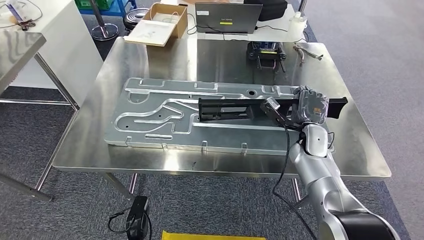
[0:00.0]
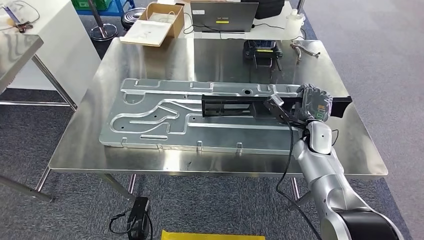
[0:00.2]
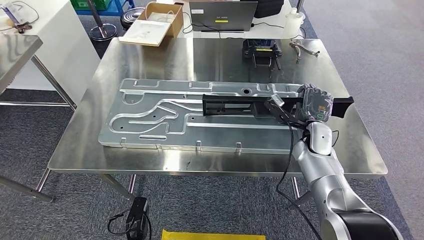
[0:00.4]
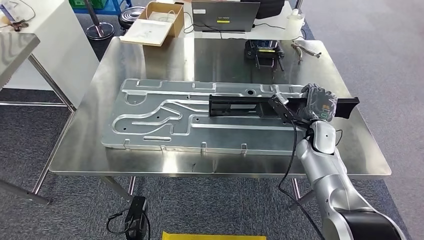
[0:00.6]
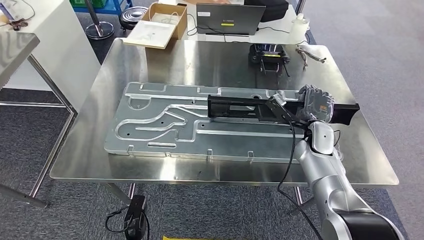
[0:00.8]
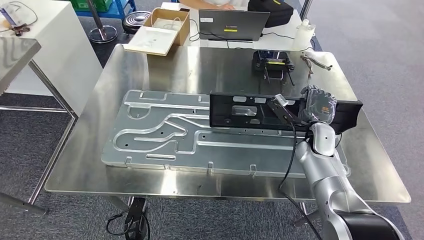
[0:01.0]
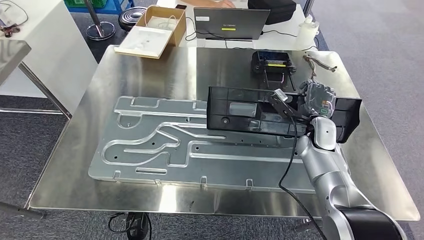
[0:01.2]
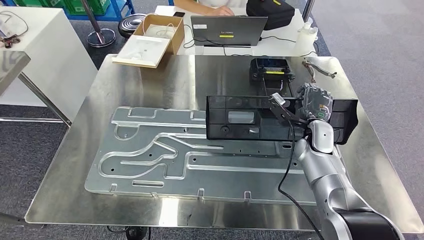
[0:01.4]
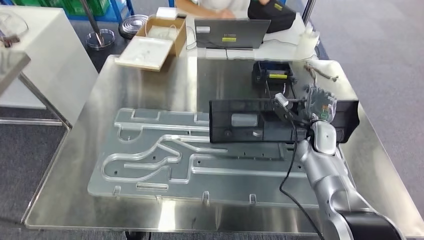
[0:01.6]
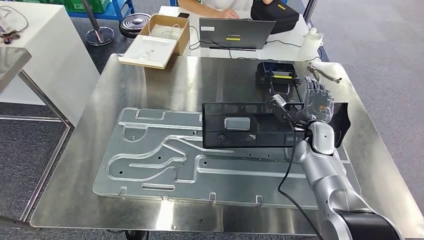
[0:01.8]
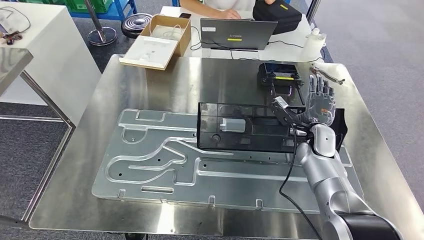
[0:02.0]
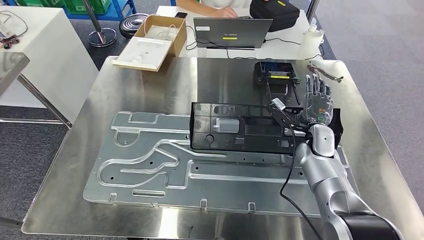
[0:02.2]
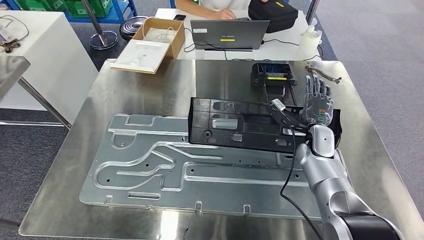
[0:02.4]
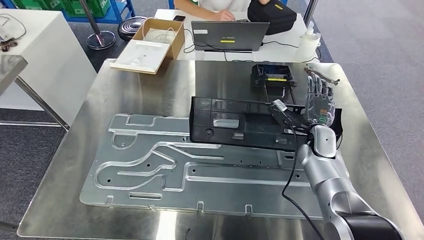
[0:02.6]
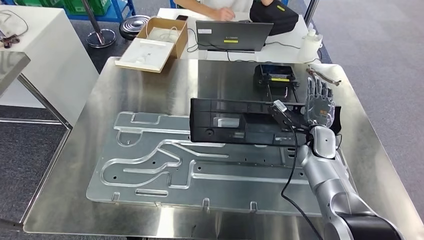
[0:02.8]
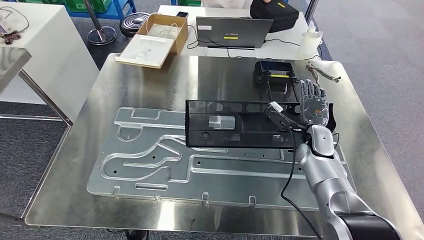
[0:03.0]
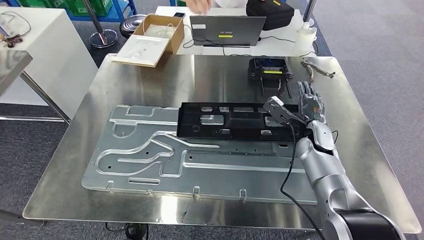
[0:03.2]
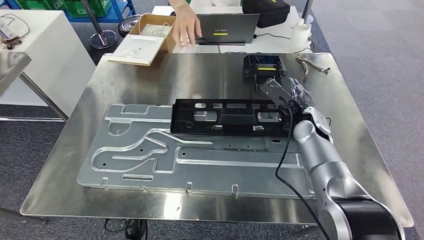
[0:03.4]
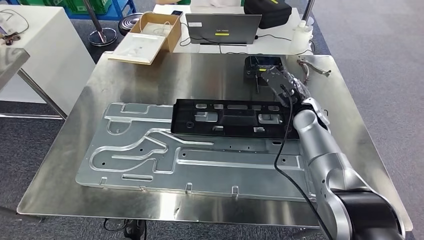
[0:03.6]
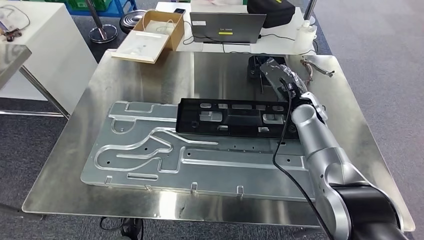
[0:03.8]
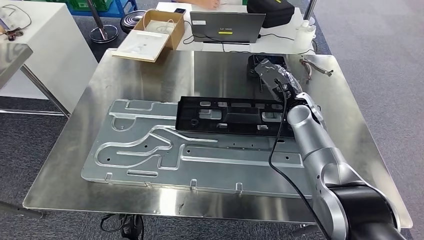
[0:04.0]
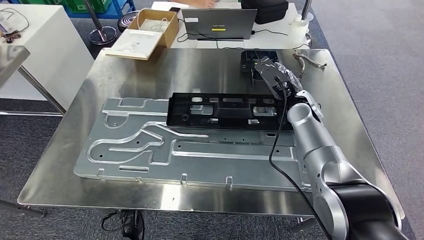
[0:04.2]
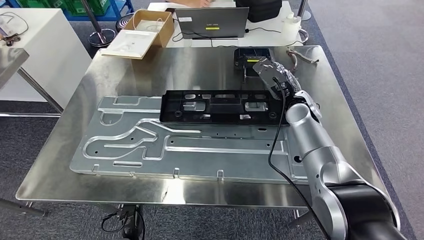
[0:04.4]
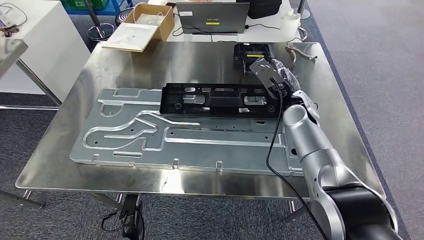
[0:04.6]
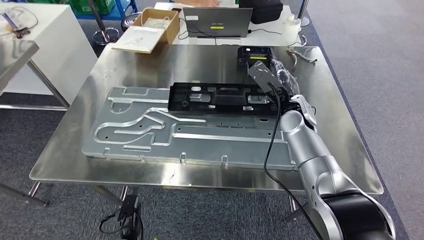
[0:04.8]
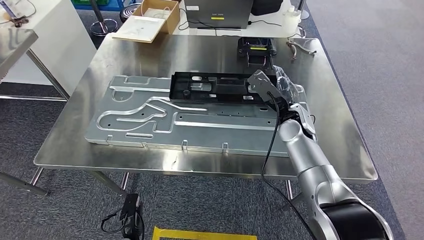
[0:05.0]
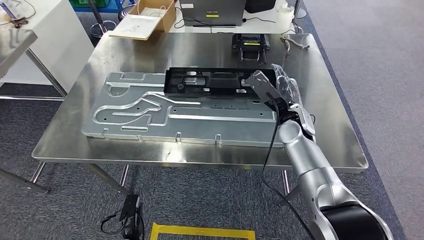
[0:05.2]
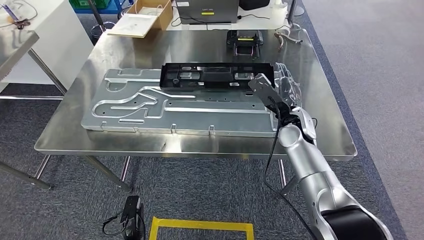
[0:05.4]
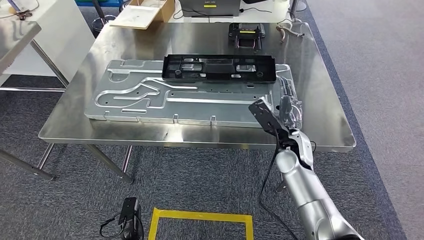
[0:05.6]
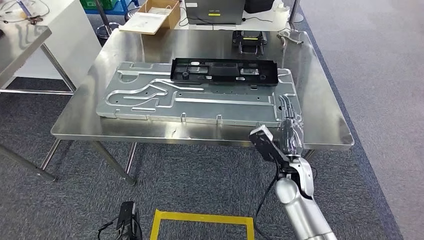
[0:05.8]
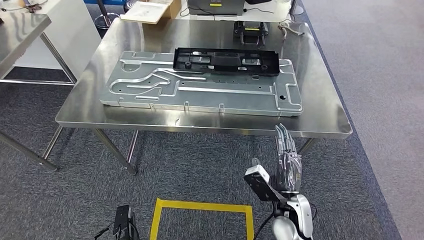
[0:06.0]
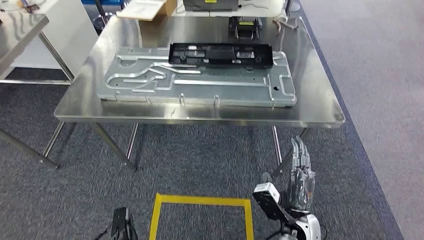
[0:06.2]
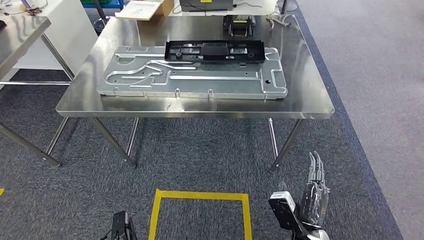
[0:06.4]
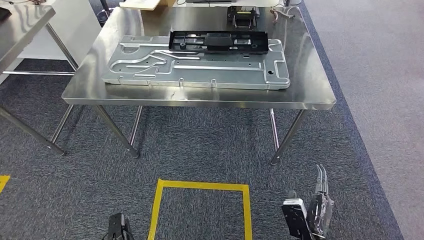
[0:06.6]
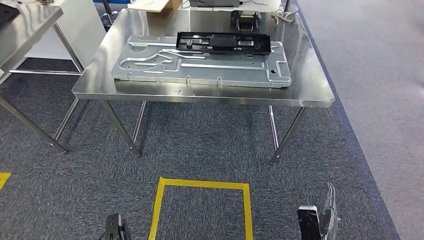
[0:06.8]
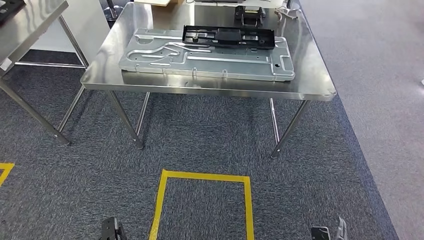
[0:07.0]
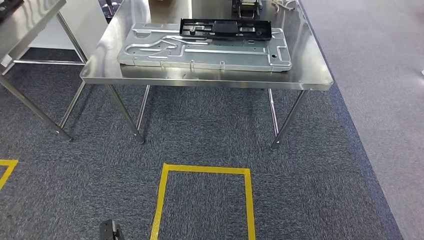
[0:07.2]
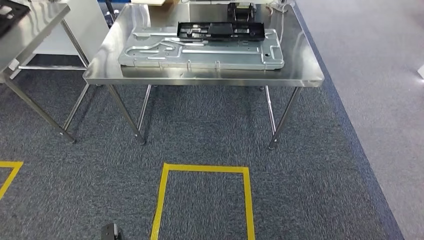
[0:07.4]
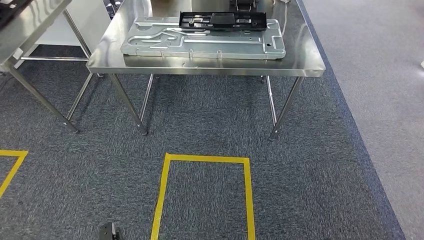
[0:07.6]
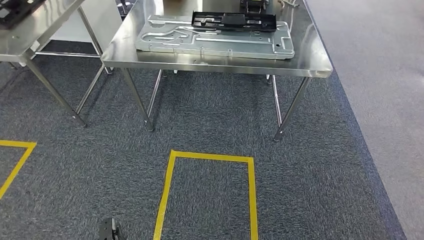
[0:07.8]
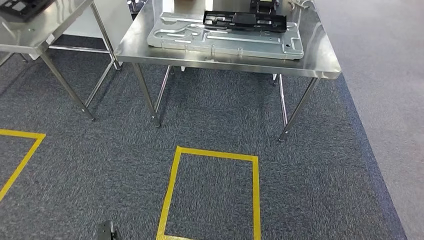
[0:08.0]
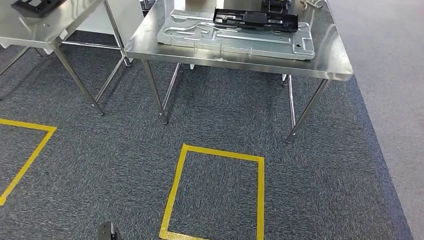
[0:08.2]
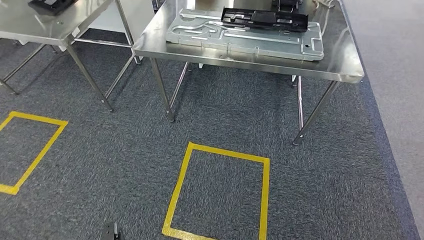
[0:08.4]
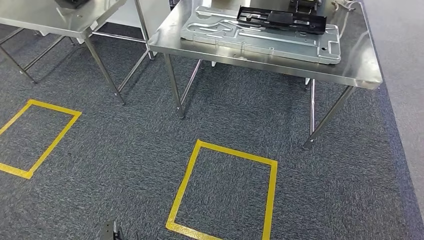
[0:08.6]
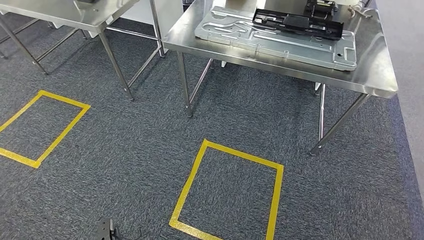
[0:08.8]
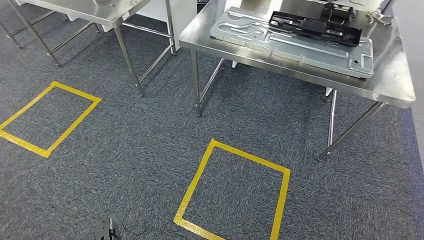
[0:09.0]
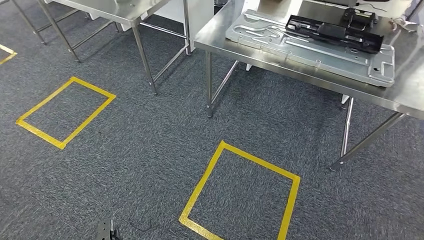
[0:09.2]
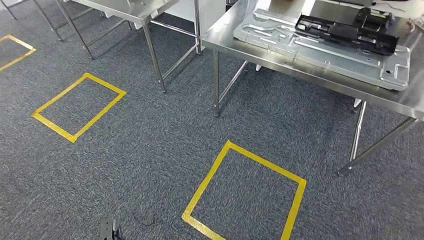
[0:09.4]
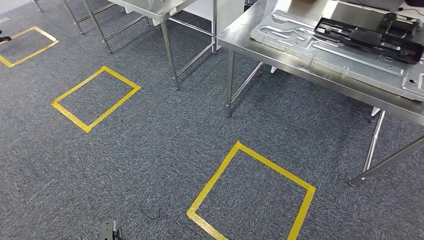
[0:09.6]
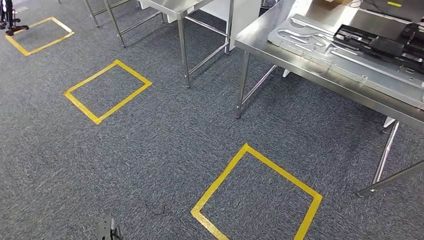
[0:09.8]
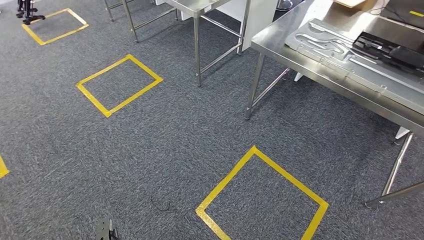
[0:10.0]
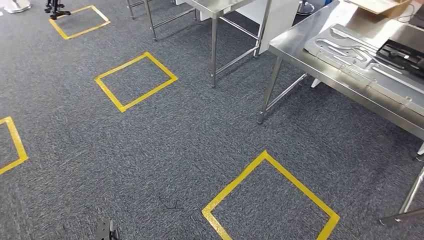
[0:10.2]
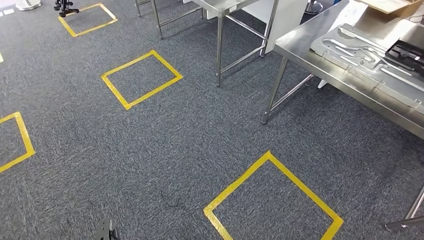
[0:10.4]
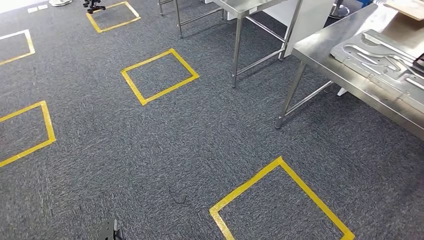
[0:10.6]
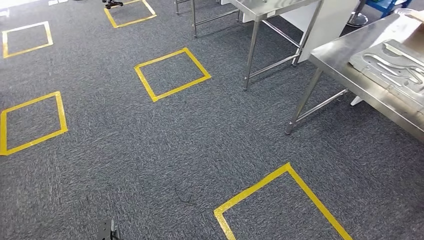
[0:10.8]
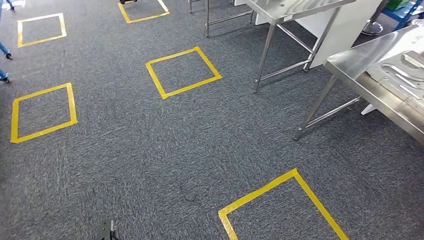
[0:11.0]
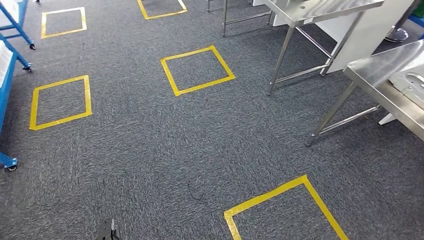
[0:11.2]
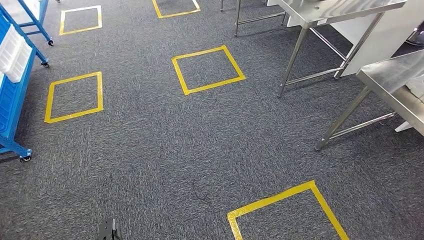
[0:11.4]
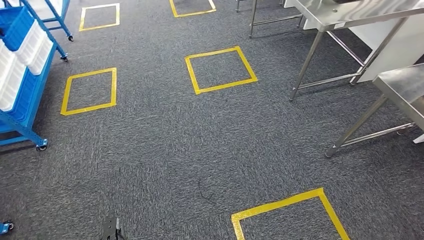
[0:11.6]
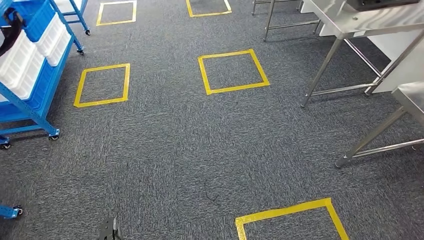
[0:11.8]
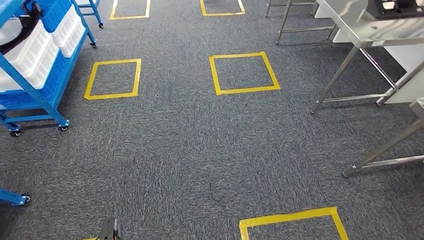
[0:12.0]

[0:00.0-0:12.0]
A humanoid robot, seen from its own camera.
Step, 0:00.0 to 0:06.4: Insert the large material into the corresponding slot on the workbench.

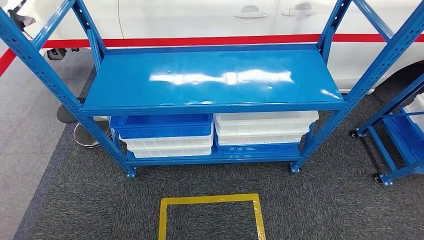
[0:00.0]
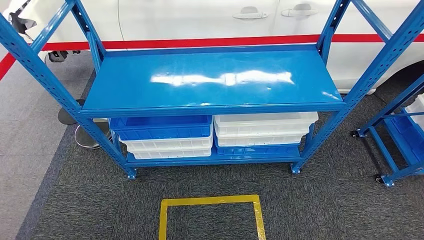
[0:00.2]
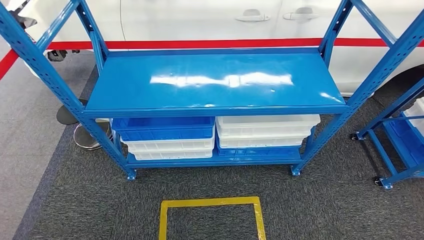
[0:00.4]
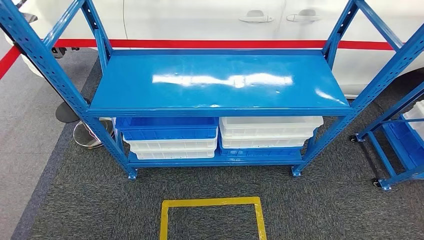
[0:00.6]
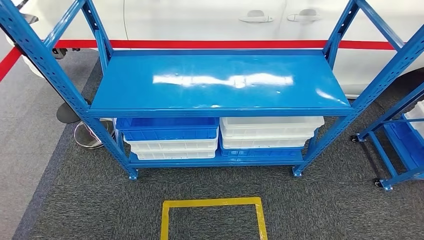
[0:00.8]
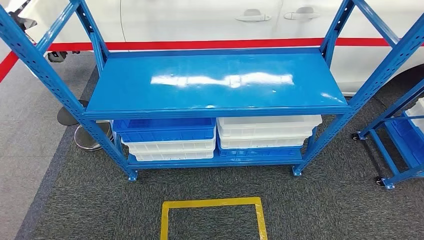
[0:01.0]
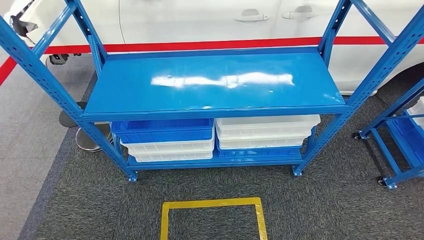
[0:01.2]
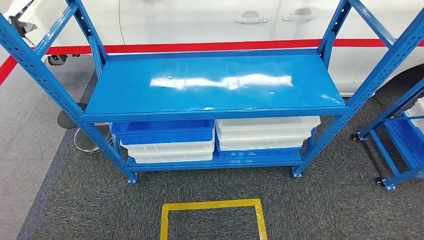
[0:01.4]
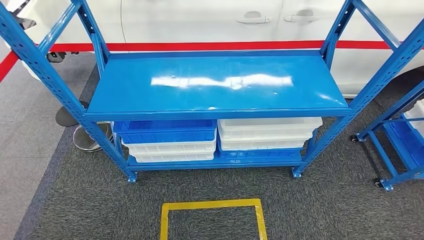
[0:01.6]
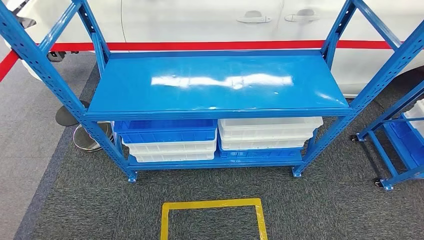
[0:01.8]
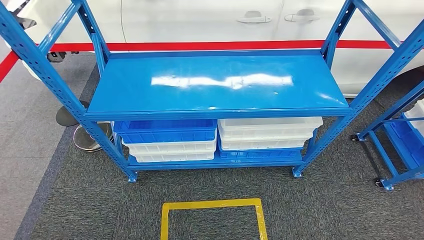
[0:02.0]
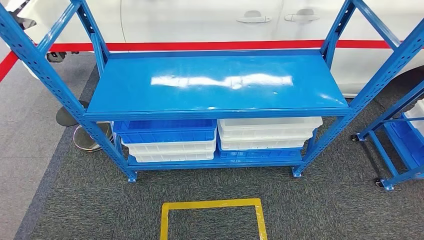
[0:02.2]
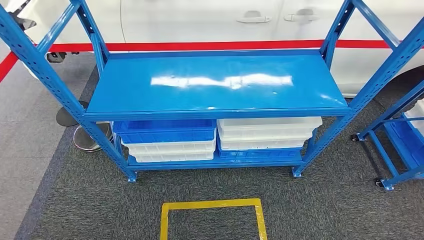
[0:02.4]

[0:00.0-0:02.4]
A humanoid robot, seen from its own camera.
Step, 0:00.0 to 0:02.2: Move to the initial position of the shelf.
0:01.2 to 0:02.4: There are only small adjustments of the hands.

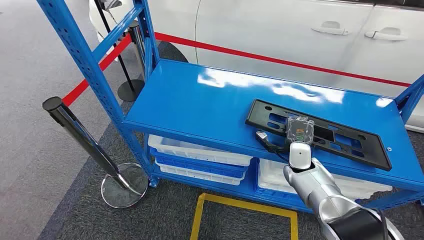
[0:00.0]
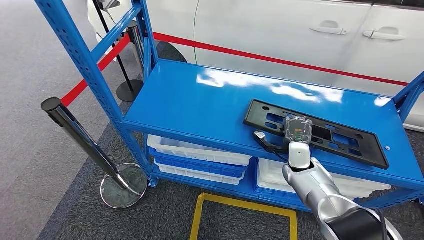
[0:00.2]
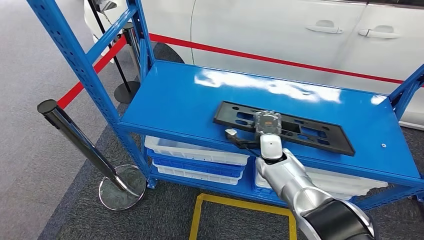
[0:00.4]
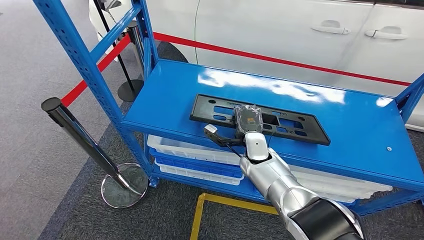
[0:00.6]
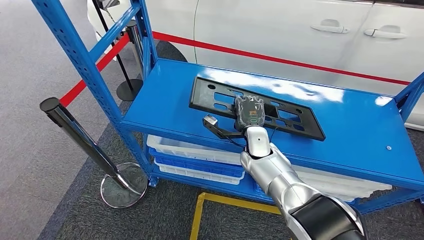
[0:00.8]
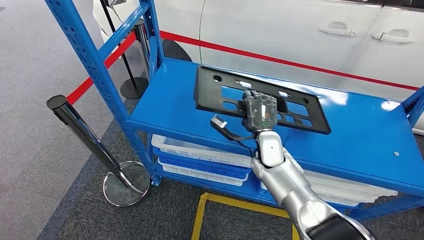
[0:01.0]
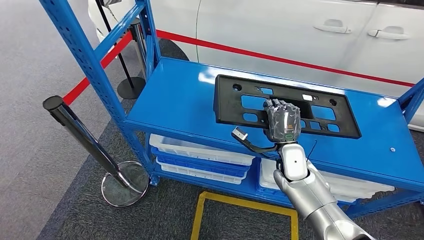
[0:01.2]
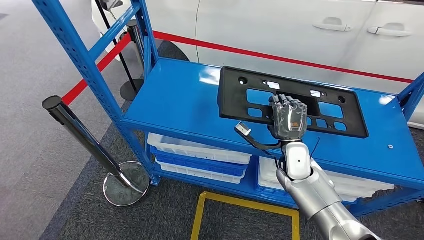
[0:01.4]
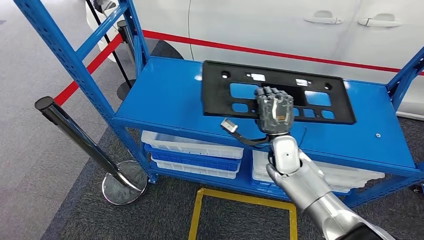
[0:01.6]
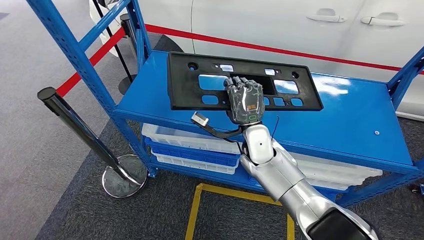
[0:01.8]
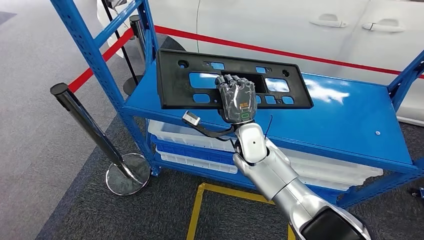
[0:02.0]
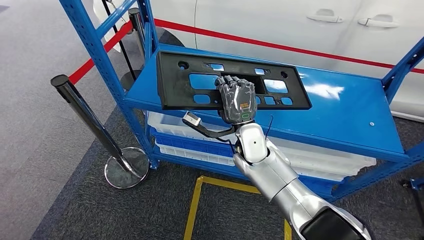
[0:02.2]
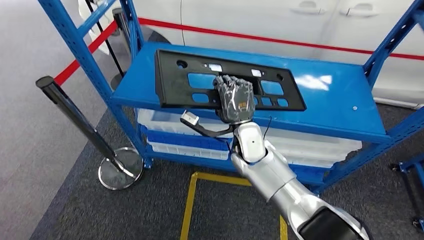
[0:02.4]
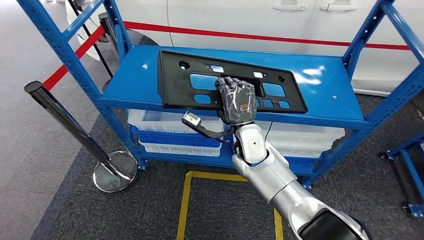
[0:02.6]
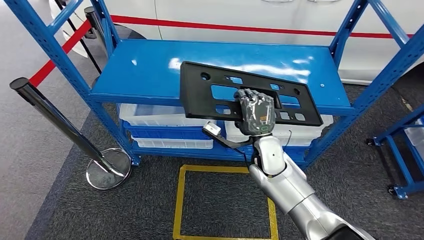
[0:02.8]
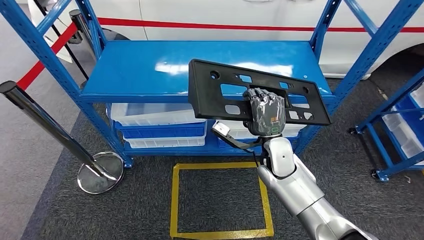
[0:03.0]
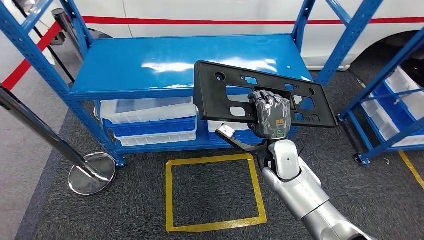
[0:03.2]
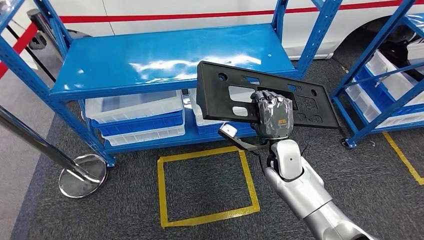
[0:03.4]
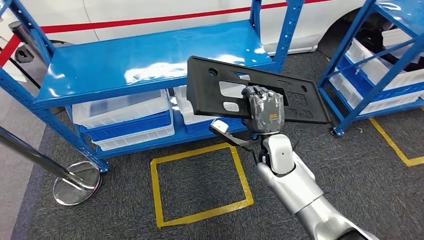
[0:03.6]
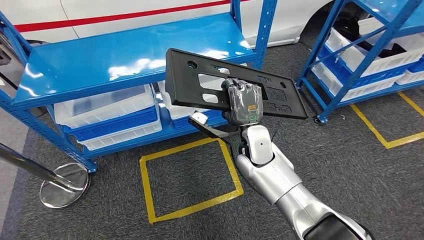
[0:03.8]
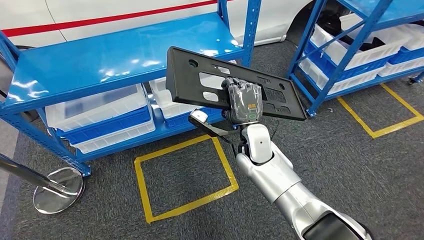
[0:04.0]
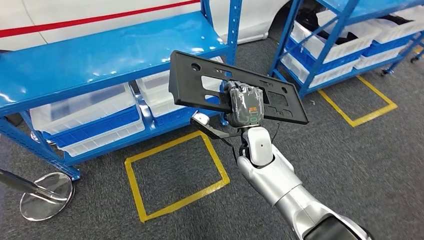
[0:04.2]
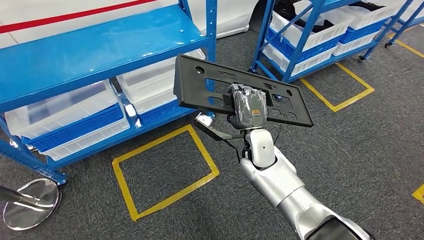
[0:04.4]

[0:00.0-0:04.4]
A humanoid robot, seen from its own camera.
Step, 0:00.0 to 0:03.6: Pick up the large material from the shelf.
